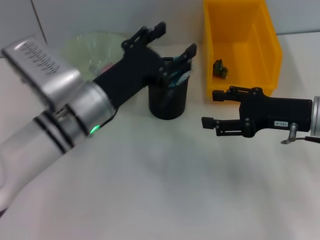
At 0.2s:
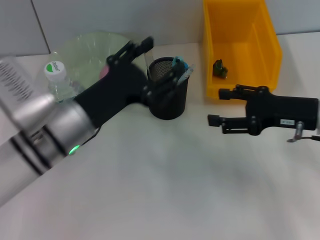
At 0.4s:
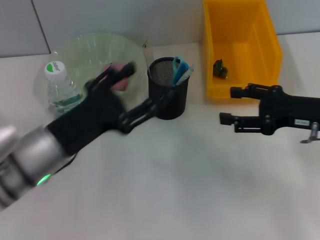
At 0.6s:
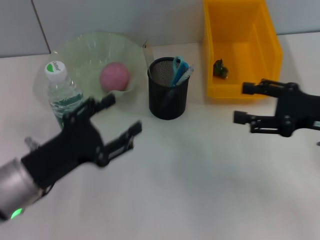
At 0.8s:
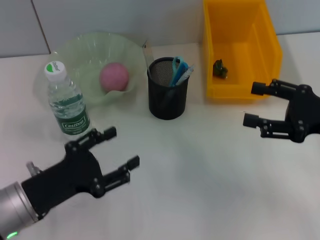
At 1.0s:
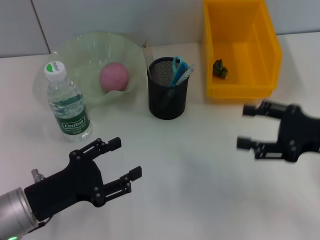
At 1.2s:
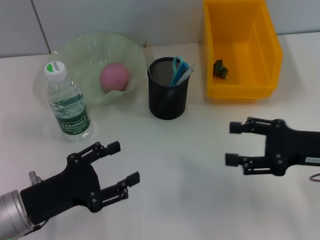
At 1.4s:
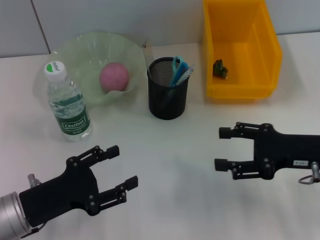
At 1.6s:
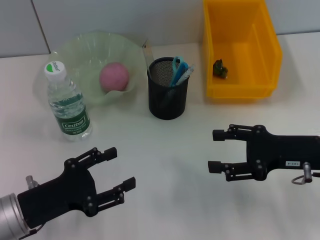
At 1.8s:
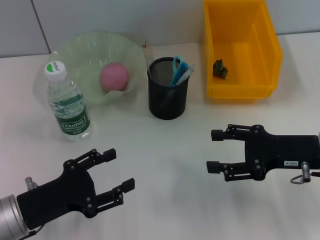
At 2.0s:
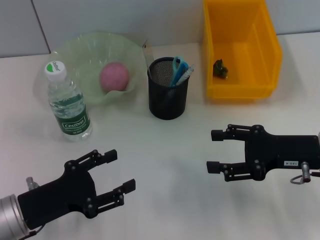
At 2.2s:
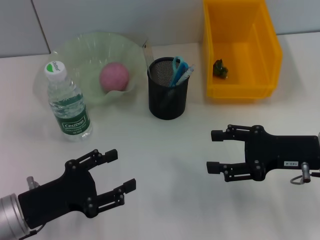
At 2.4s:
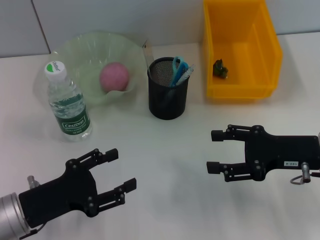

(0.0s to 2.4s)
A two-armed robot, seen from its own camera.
0.0s - 1.2s: The right gripper moves roughly 5 cm. The left gripper goes some 15 cm to the left, backward and downward.
1.2s - 2.4s: The grippers stay close to where they were, moving slightly.

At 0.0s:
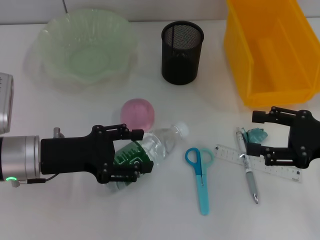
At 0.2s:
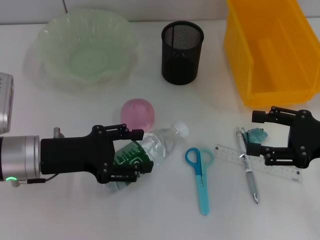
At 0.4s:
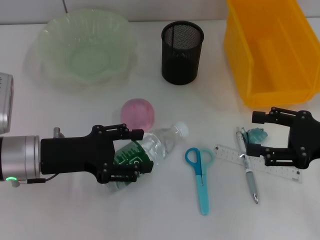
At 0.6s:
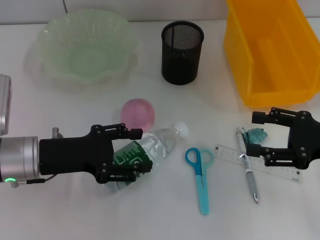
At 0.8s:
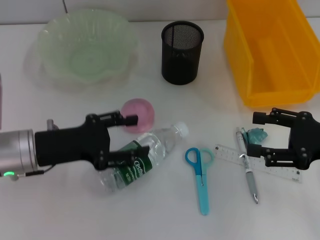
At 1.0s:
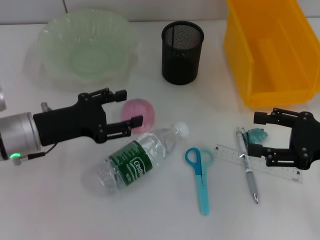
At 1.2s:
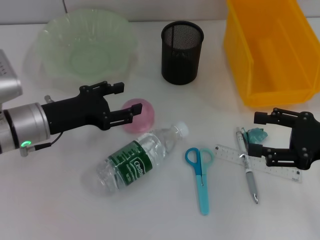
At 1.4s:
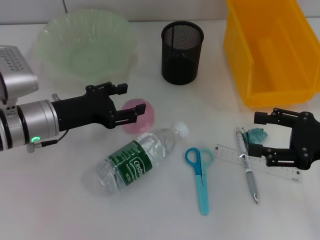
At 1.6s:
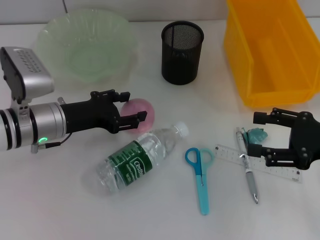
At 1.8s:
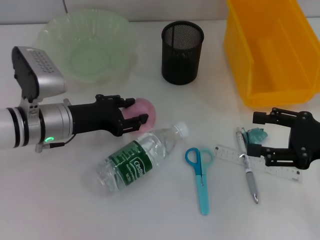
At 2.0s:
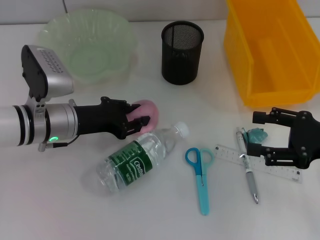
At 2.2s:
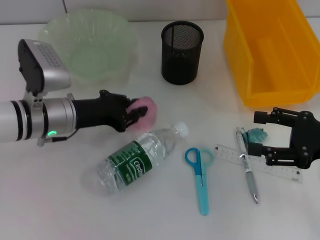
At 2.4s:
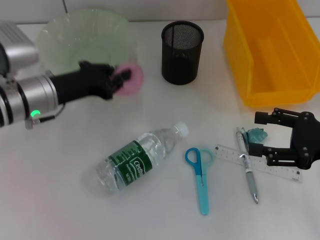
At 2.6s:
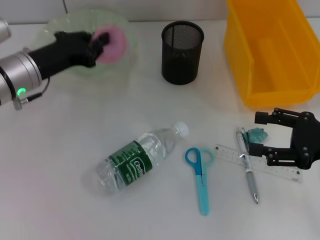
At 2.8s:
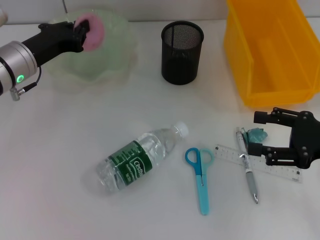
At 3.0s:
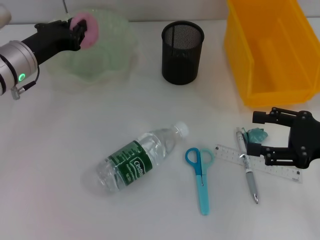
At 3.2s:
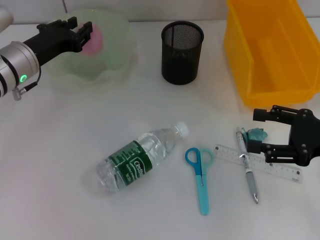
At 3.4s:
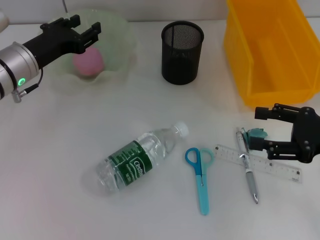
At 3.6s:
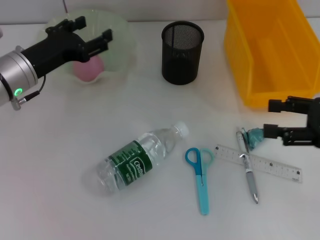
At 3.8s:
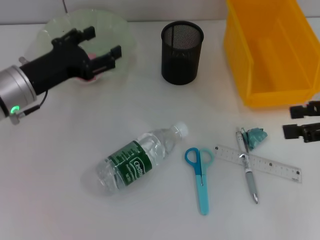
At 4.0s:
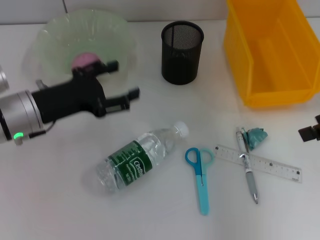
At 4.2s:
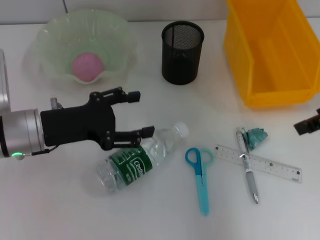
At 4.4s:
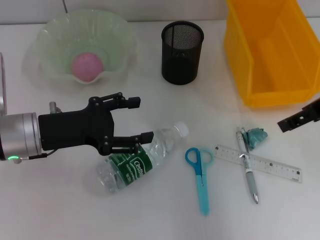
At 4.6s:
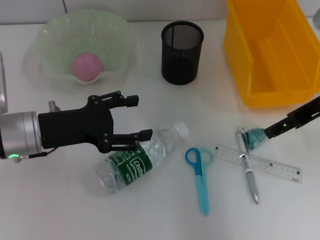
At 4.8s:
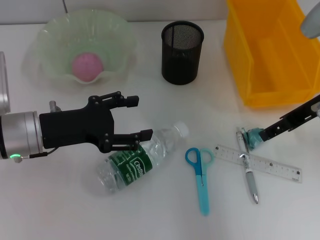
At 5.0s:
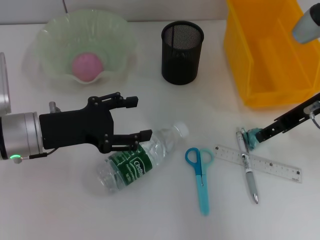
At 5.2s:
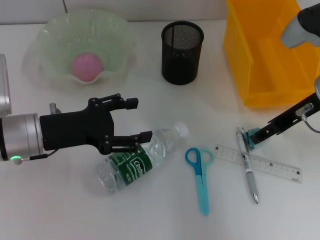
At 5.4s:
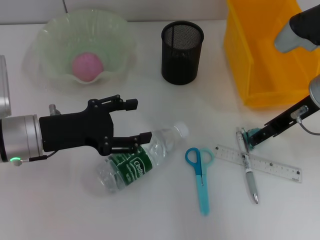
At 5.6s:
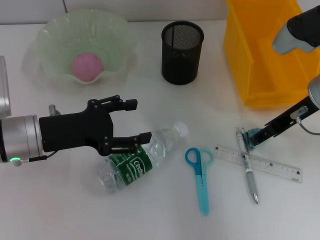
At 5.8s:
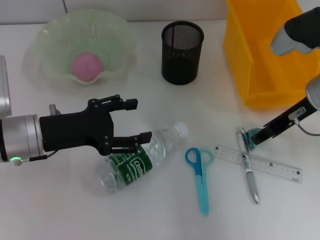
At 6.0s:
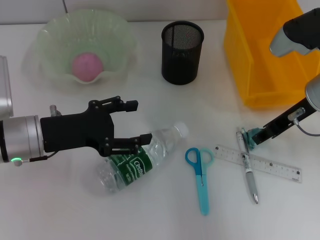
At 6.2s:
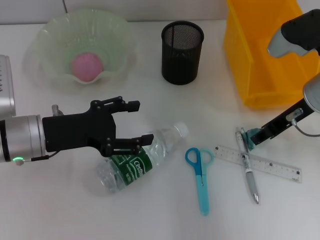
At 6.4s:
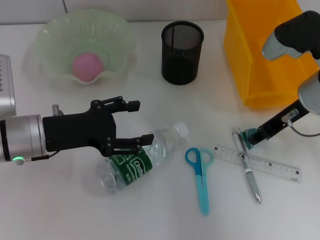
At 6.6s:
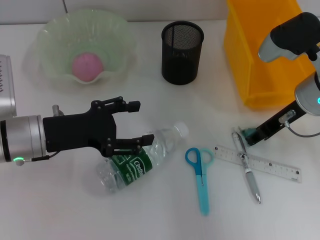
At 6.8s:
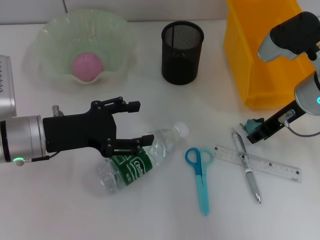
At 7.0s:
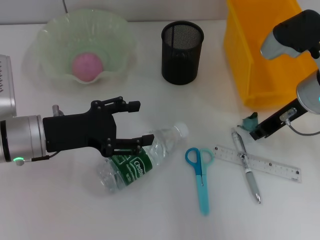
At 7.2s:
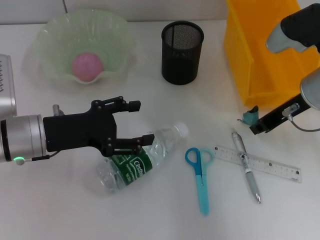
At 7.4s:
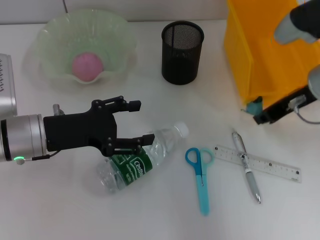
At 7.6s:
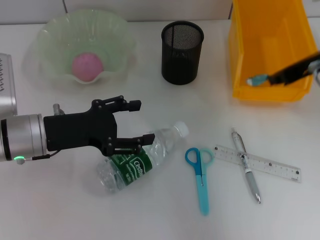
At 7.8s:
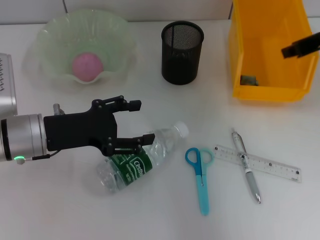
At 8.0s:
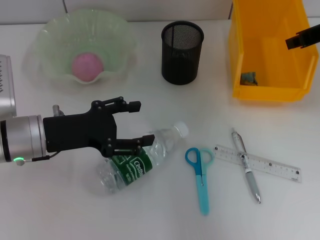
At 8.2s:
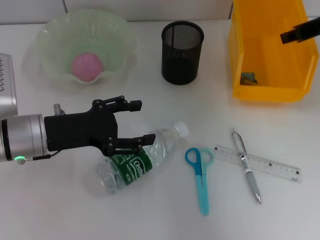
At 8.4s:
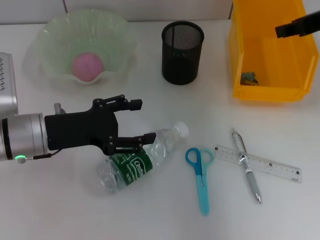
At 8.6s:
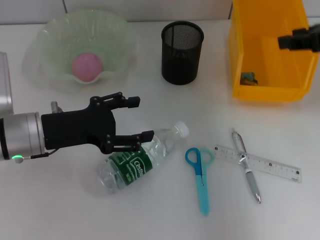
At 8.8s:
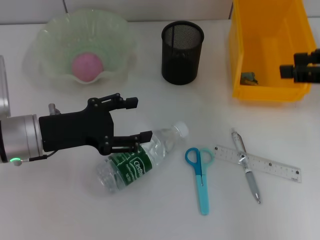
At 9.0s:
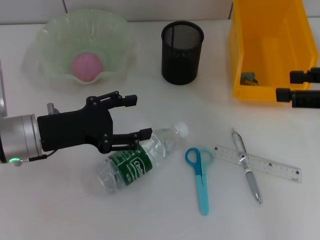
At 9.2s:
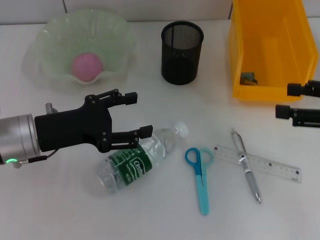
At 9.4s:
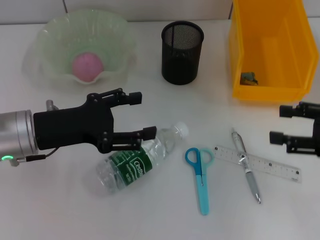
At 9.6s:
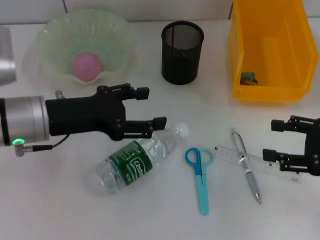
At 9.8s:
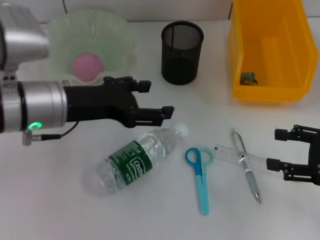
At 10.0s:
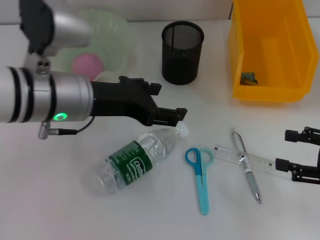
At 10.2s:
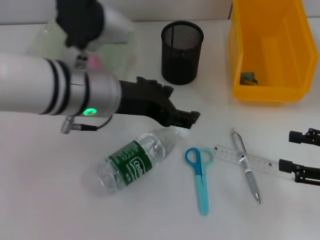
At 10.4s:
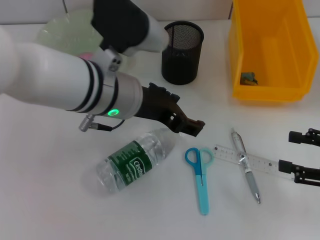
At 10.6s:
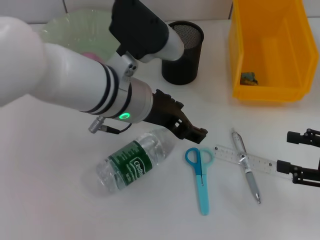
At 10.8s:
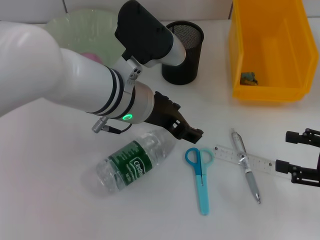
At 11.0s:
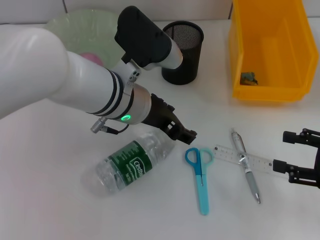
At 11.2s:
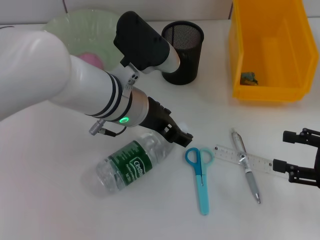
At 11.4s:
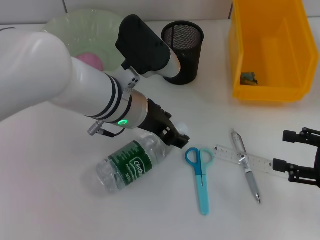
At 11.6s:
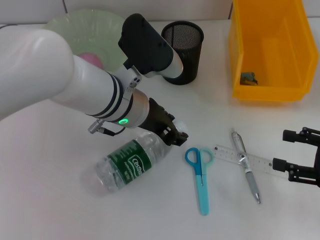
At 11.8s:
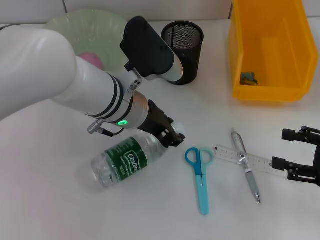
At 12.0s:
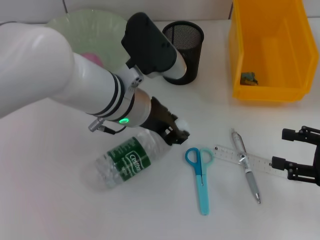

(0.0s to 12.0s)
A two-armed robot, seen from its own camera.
Step, 0.0s - 2.0s: Grab the peach with the left hand.
Step, 2.2s - 3.4s: Place the peach into the fruit bowl with the left hand.
Step, 3.6s - 6.8s: Grab the plastic with the right hand.
Step, 7.0s - 8.4s: Place the plastic into the trash can with the right hand.
Step, 8.6s - 11.6s: Grab the water bottle with the left hand.
0.0s - 1.6s: The left gripper goes roughly 5 cm forward.
1.6s - 3.0s: The left gripper shifts approximately 5 cm forward, and closes up.
3.0s - 4.4s: The right gripper travels upward and forward by roughly 15 cm. The left gripper goes roughly 10 cm backward, and opens.
4.4s - 6.0s: The right gripper travels downward by some 10 cm.
6.0s - 7.6s: The right gripper goes approximately 5 cm upward, and closes up.
7.6s - 9.0s: The right gripper shifts roughly 10 cm backward and to the right, and opens.
9.0s - 10.4s: The left gripper shifts approximately 15 cm to the right and upward. Meanwhile the right gripper moves downward and backward, about 10 cm.
10.4s - 12.0s: The left gripper closes.

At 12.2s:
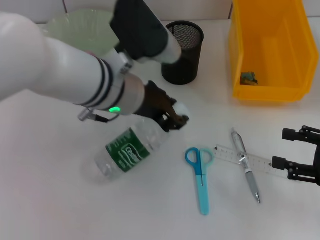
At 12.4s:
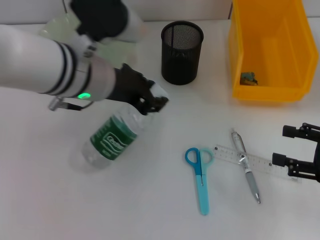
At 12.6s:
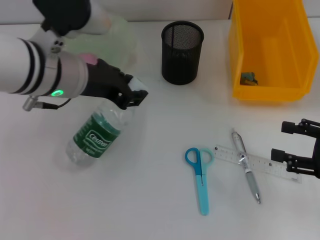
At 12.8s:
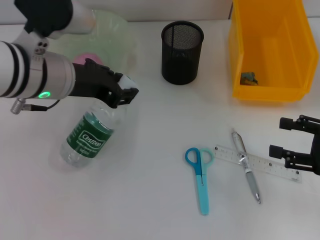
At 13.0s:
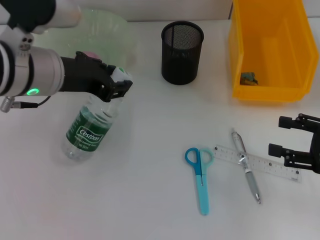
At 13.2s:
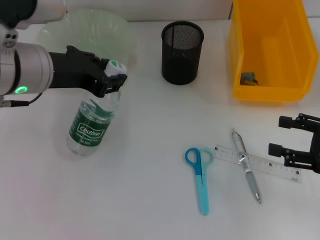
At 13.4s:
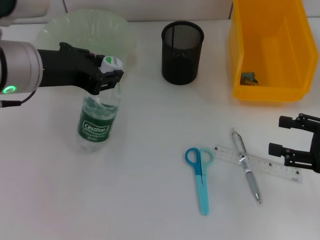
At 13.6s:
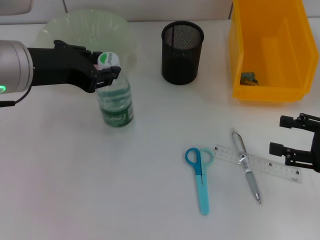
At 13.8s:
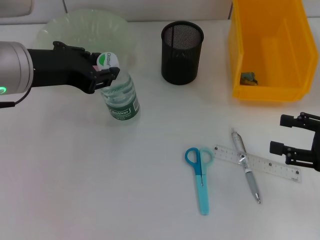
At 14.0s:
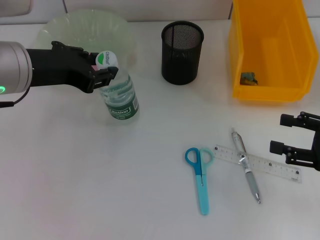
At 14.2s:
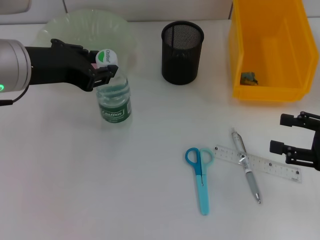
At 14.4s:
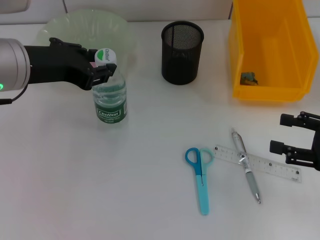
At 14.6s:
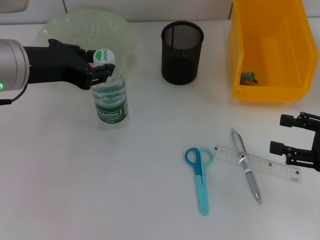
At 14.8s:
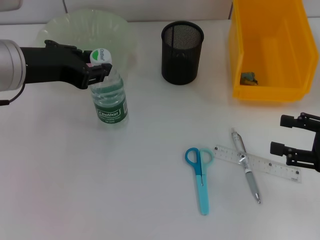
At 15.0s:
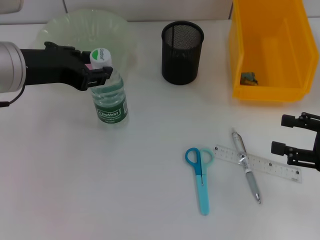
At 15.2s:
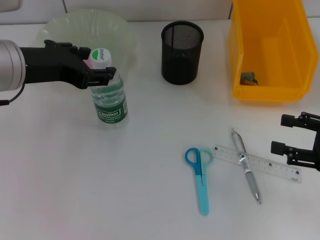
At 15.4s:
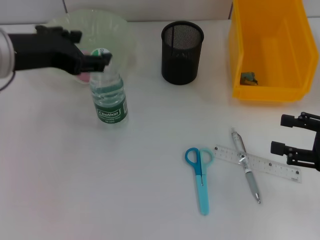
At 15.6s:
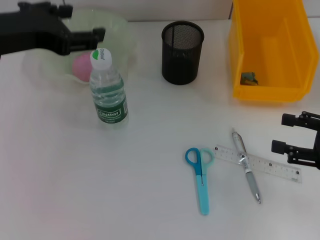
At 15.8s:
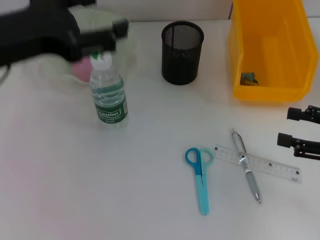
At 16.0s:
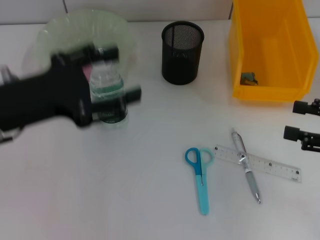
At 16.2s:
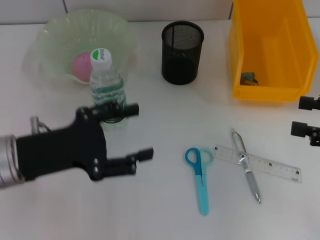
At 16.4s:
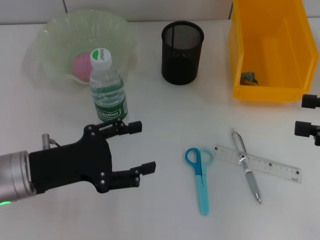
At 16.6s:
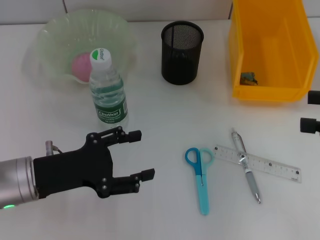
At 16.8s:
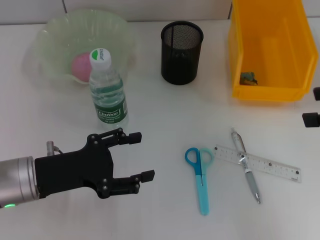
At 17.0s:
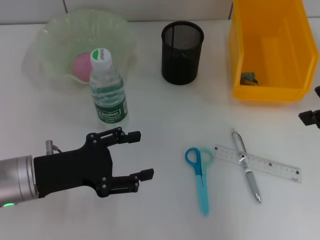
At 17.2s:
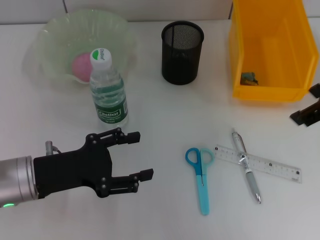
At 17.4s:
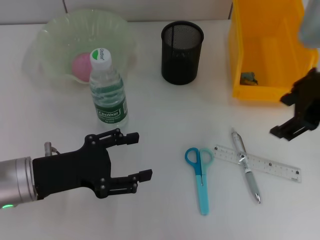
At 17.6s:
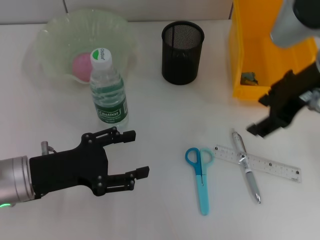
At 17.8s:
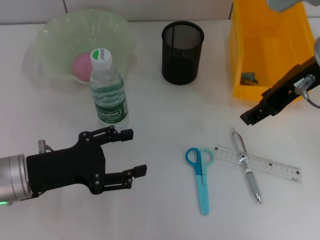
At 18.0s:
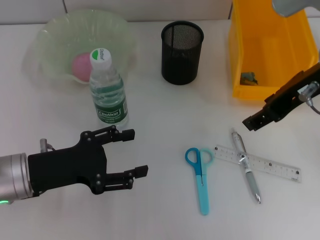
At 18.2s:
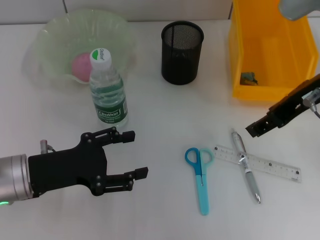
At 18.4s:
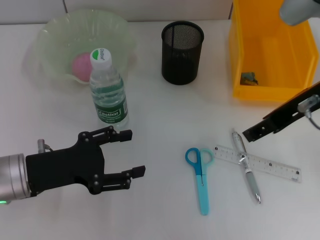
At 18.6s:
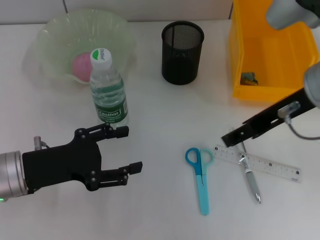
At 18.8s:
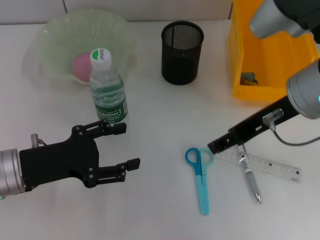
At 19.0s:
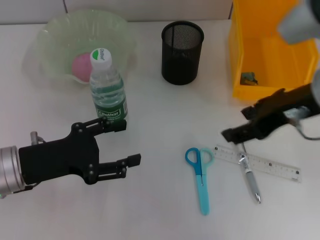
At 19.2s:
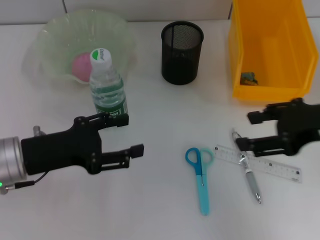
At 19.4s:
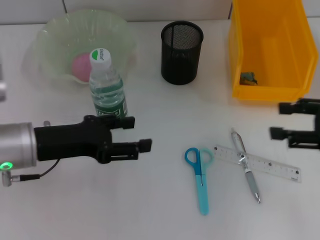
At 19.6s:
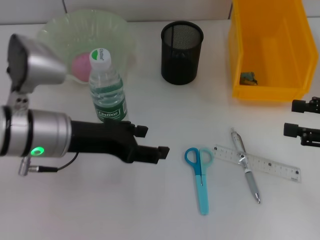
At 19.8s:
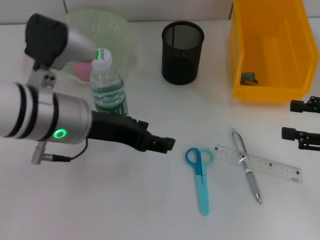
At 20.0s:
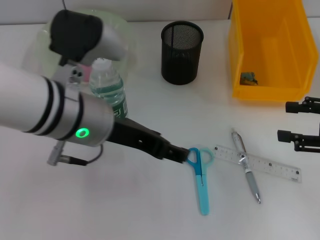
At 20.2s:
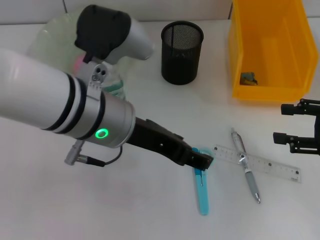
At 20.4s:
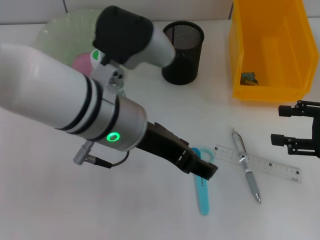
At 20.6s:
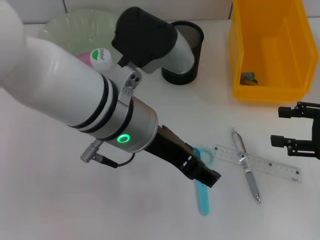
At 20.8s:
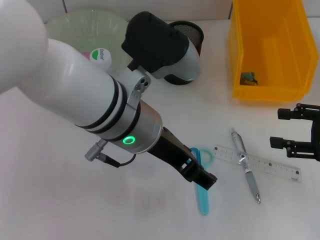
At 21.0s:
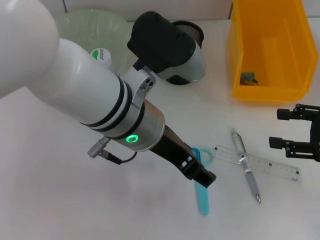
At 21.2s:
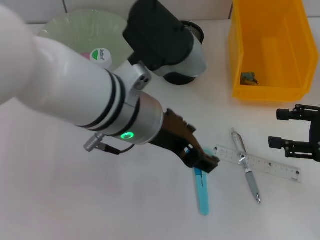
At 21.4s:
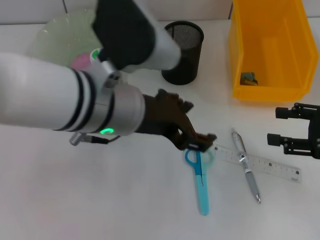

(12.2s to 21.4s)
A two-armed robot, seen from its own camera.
Step, 12.2s - 15.0s: Place the water bottle on the table with the left hand.
12.2s - 13.8s: The left gripper shifts approximately 15 cm to the left and upward.
13.8s - 15.2s: Both grippers stay about where they are.
15.2s - 16.8s: The right gripper heads upward, covering roughly 15 cm, while the left gripper shifts approximately 15 cm downward and backward, and opens up.
16.8s - 18.4s: The right gripper moves to the left, roughly 15 cm.
18.4s - 19.8s: The right gripper goes roughly 20 cm to the right and downward. The left gripper travels to the right and upward by roughly 15 cm.
19.8s - 21.4s: The left gripper moves to the right, roughly 5 cm.
